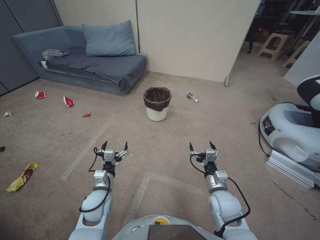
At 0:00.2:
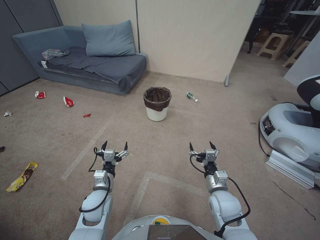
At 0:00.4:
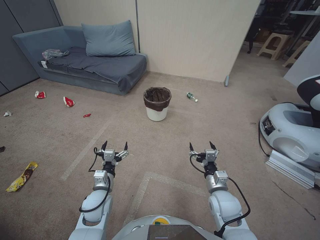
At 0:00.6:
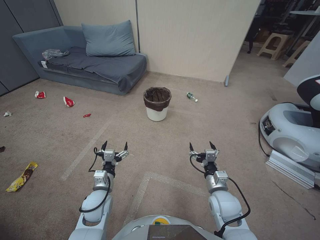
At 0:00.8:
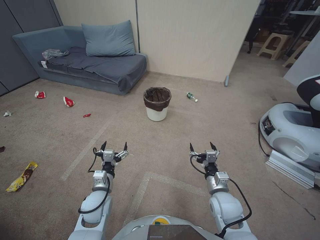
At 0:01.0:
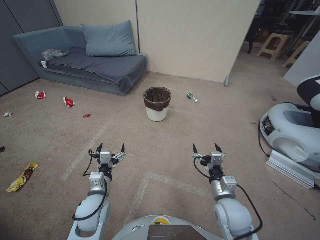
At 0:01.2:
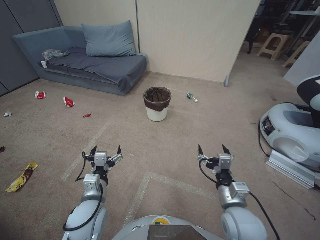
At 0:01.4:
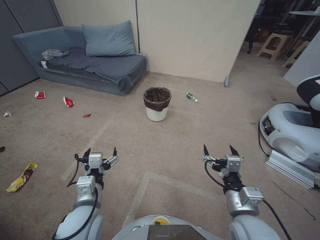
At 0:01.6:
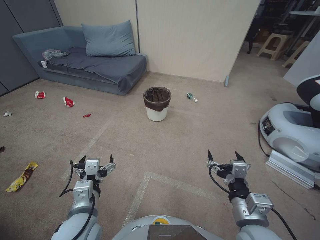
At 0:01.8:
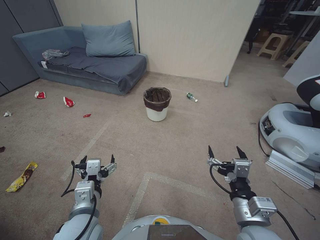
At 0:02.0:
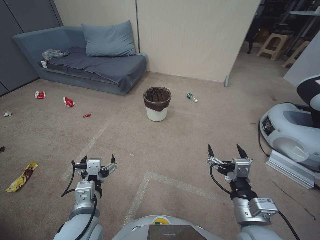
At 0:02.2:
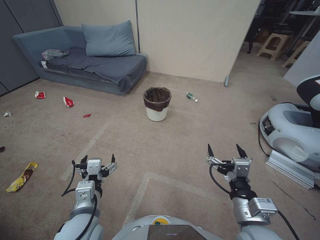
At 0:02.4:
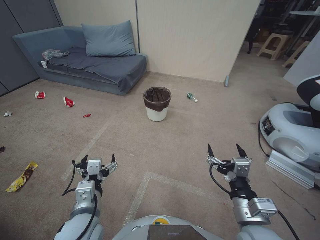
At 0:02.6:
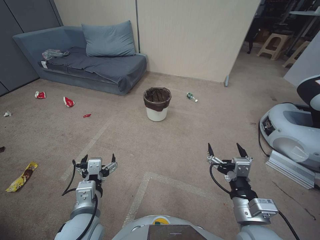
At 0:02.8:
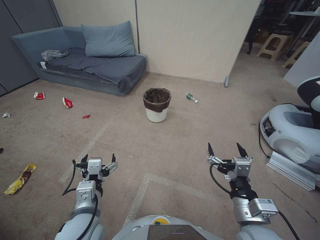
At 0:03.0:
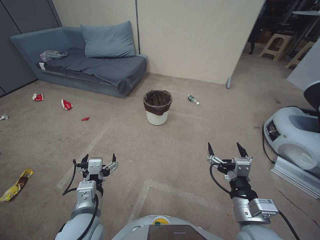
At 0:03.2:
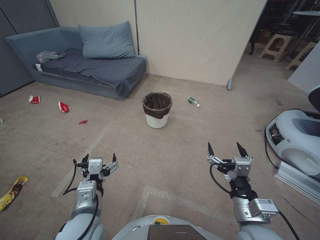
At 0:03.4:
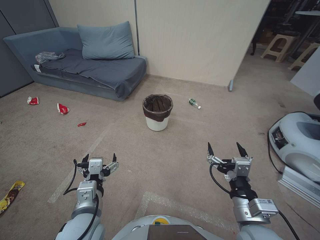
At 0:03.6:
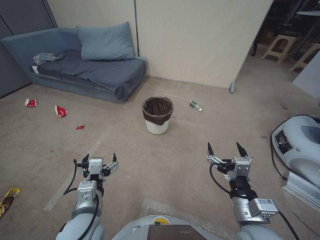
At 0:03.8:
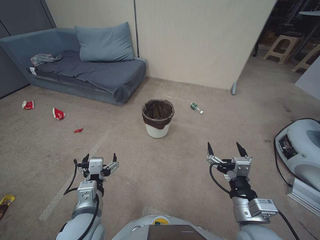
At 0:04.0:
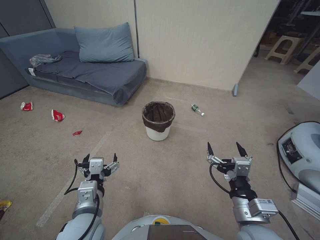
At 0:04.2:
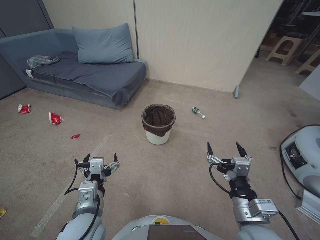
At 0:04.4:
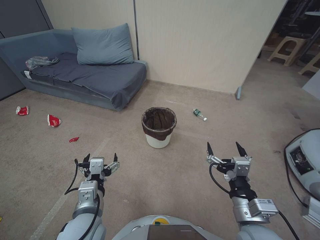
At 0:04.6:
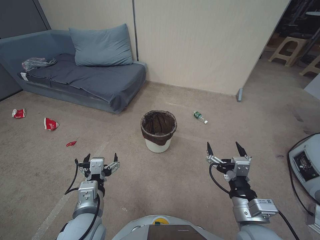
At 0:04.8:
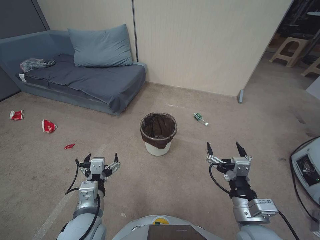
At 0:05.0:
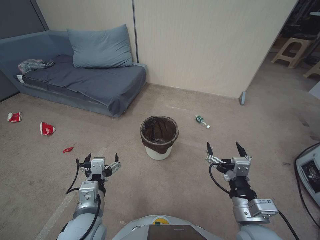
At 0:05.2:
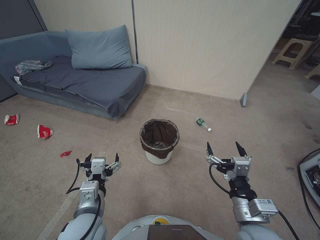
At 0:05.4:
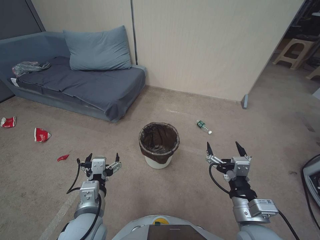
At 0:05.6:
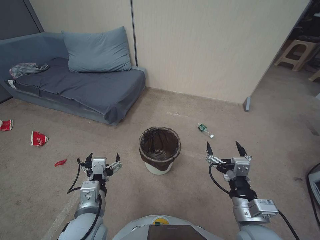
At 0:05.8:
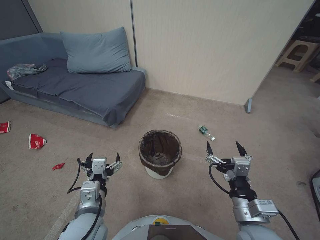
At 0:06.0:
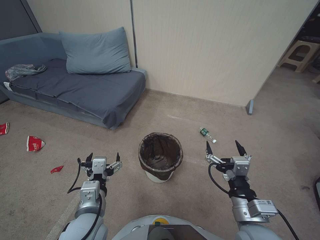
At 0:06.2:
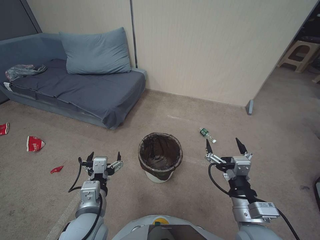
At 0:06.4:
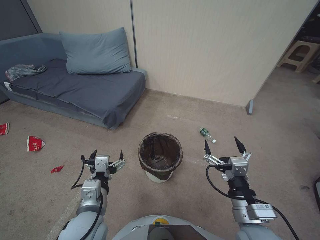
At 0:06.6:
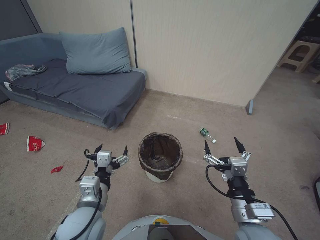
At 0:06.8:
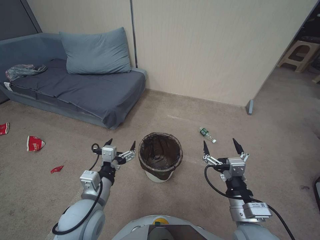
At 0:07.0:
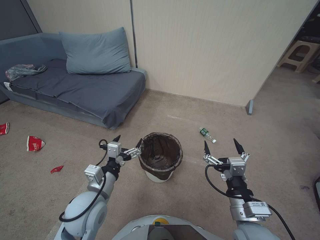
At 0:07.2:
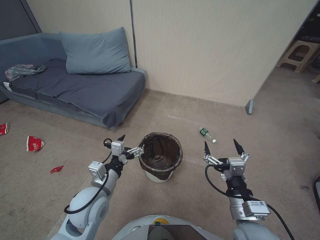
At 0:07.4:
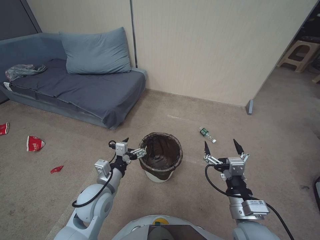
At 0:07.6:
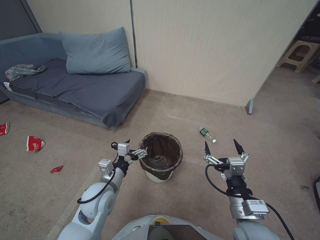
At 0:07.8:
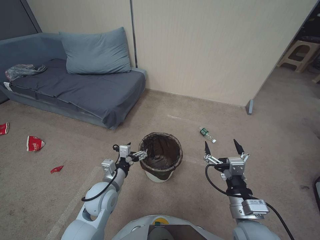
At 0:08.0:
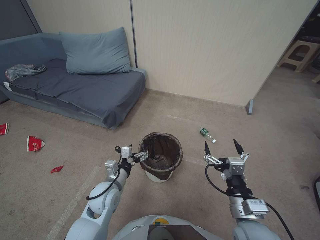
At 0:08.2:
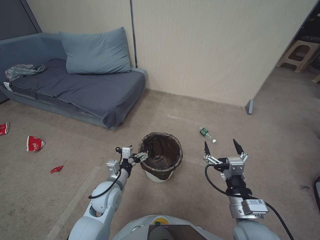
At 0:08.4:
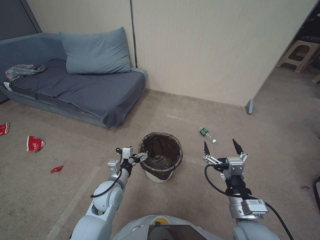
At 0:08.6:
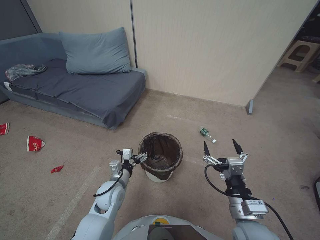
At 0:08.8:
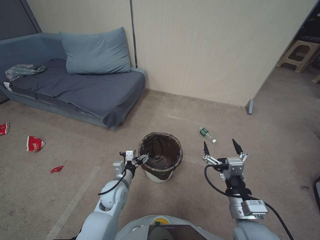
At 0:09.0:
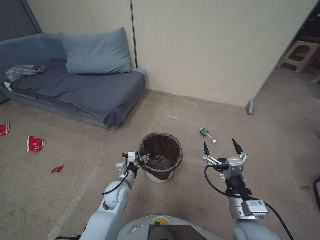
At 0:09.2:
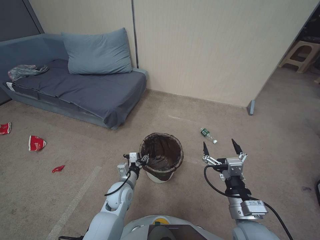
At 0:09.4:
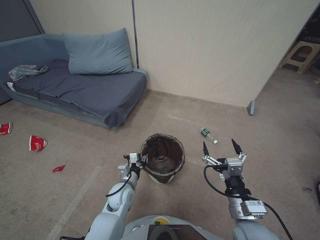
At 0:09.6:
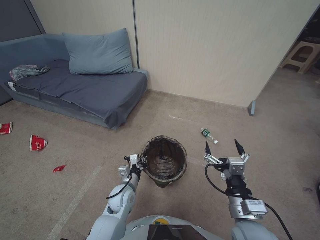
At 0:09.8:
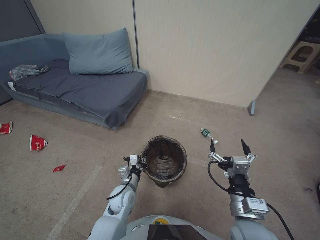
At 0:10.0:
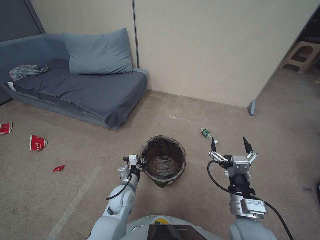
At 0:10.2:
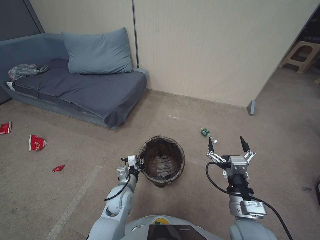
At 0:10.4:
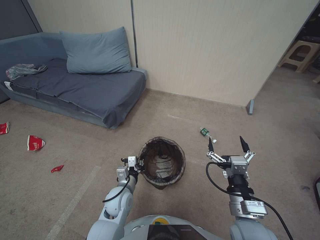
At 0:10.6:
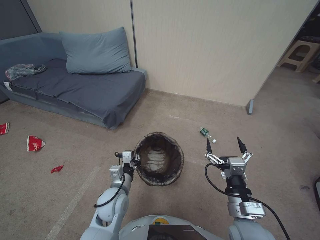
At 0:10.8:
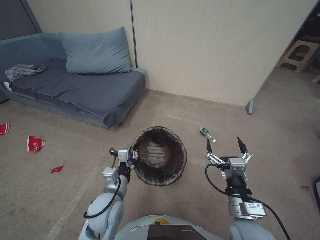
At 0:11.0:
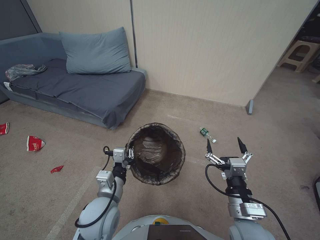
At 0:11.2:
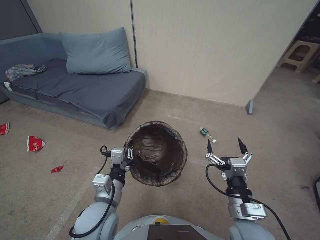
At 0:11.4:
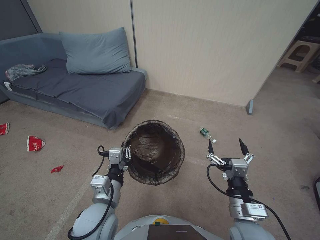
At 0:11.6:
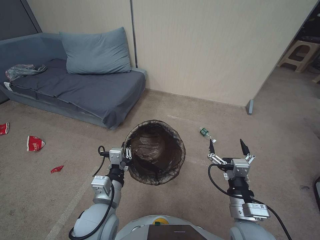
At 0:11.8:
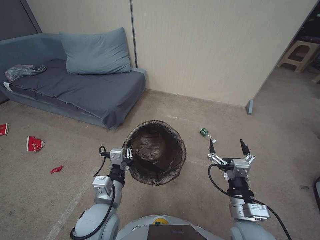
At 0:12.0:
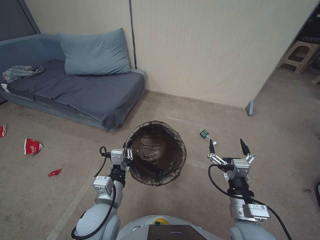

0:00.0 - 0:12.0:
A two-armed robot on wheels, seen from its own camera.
Task of the whole recording: Pick up the trash bin, then pick up the garbage from the floor and place it into the trash bin.
0:01.6 - 0:03.0: The grippers stay close to where they were, moving slightly.
0:06.0 - 0:07.6: The left gripper moves forward, approximately 10 cm.
0:07.6 - 0:09.0: The left gripper travels downward by some 10 cm.
0:09.0 - 0:10.4: The left gripper closes.
0:10.4 - 0:12.0: The left gripper goes approximately 15 cm upward and backward.

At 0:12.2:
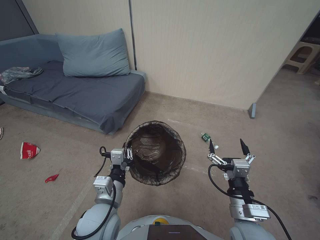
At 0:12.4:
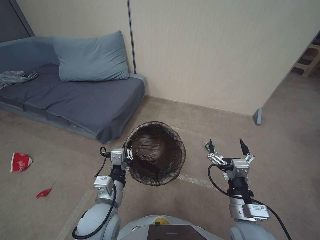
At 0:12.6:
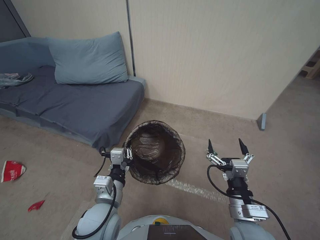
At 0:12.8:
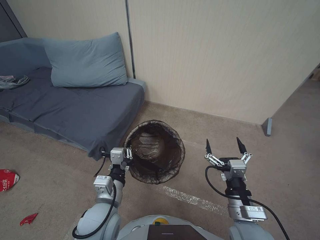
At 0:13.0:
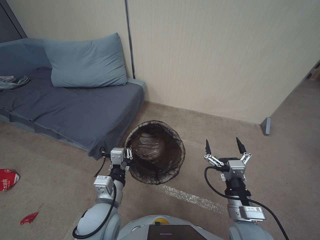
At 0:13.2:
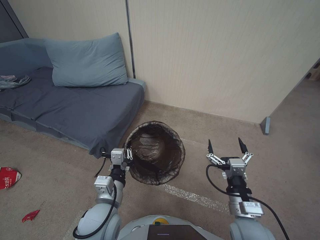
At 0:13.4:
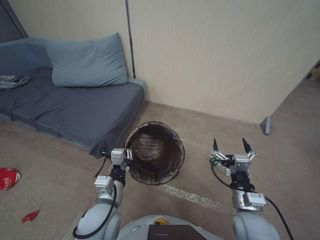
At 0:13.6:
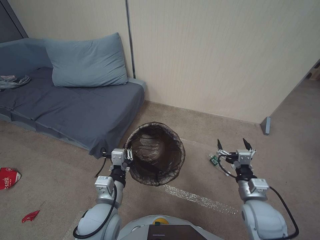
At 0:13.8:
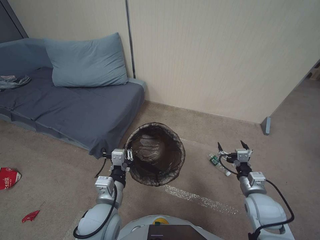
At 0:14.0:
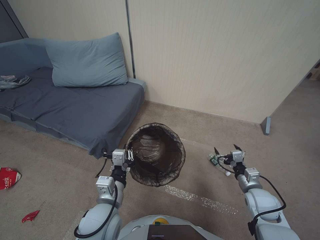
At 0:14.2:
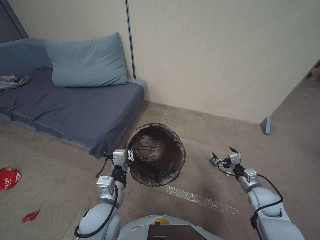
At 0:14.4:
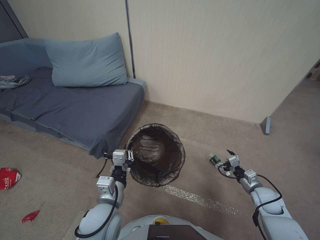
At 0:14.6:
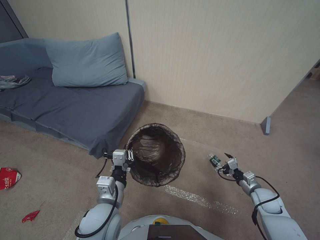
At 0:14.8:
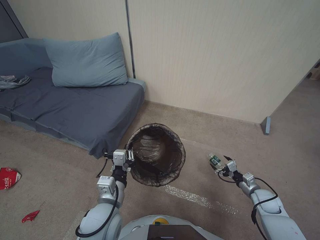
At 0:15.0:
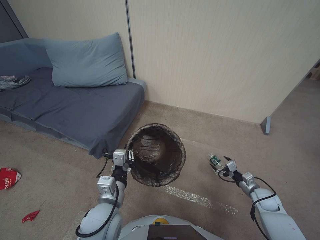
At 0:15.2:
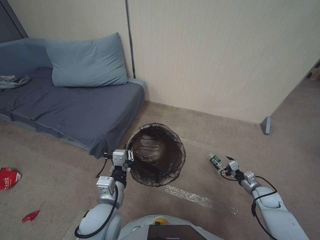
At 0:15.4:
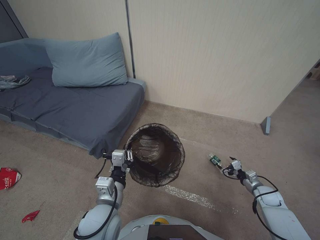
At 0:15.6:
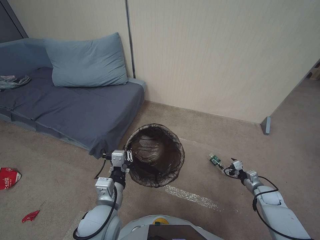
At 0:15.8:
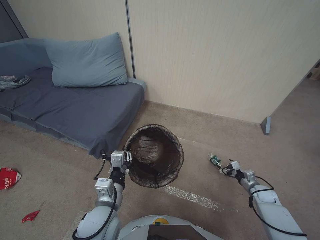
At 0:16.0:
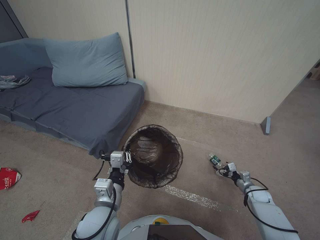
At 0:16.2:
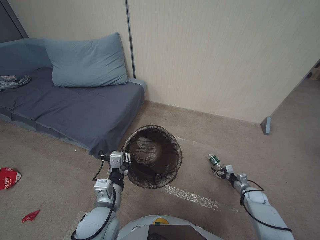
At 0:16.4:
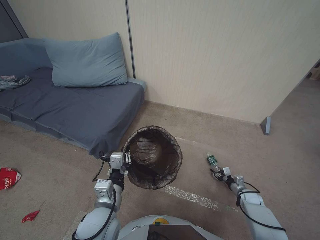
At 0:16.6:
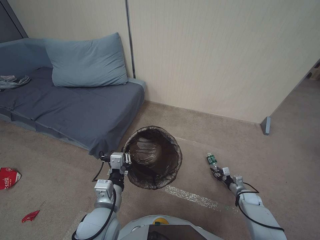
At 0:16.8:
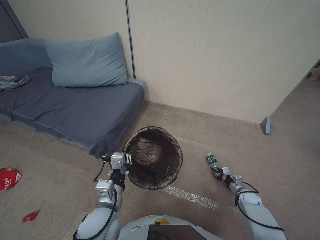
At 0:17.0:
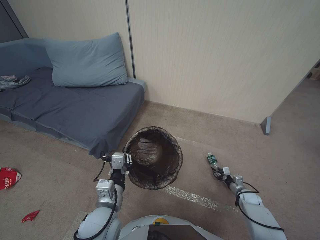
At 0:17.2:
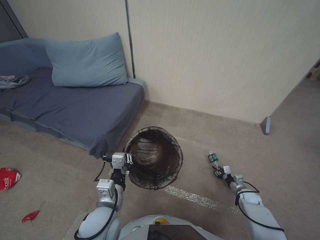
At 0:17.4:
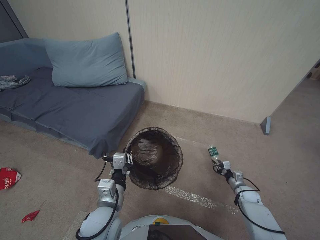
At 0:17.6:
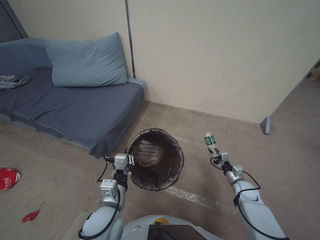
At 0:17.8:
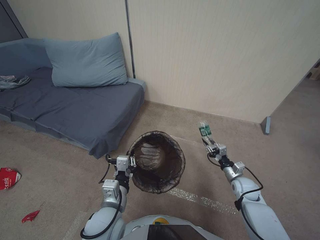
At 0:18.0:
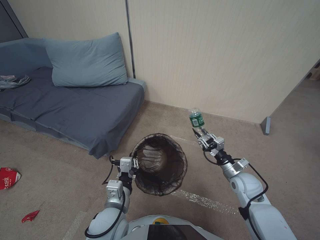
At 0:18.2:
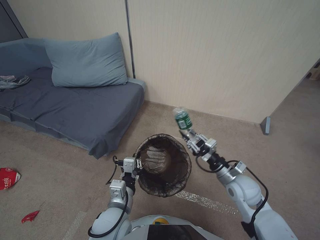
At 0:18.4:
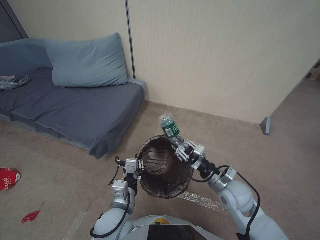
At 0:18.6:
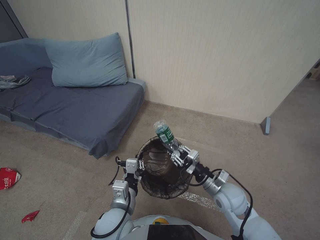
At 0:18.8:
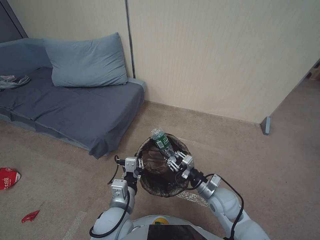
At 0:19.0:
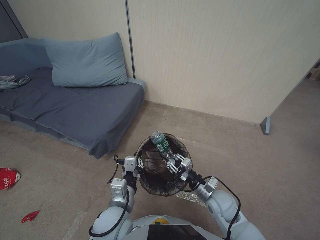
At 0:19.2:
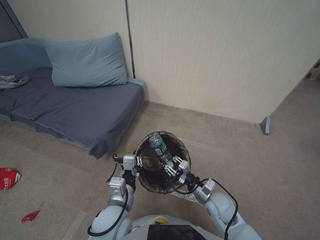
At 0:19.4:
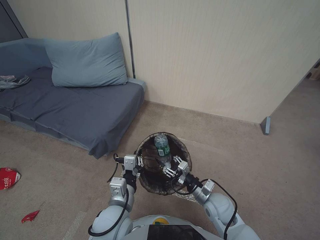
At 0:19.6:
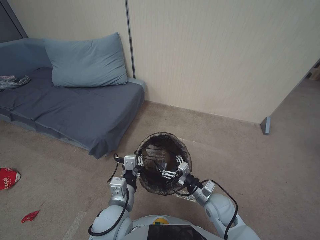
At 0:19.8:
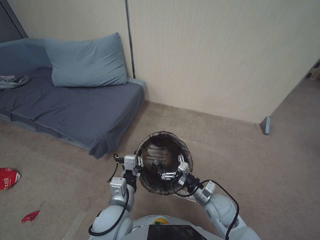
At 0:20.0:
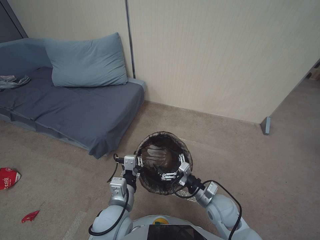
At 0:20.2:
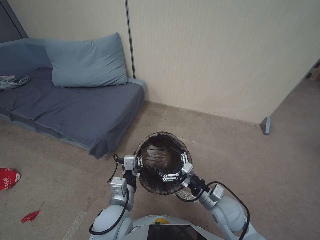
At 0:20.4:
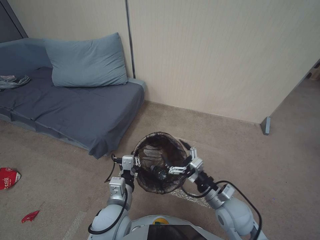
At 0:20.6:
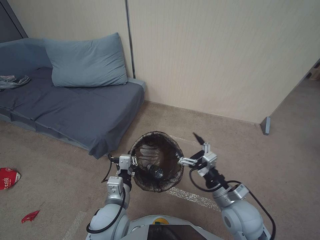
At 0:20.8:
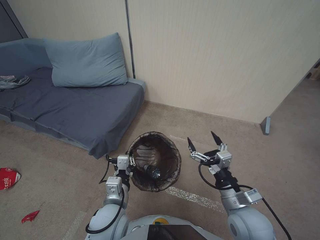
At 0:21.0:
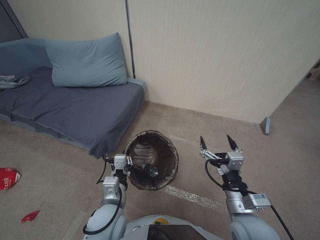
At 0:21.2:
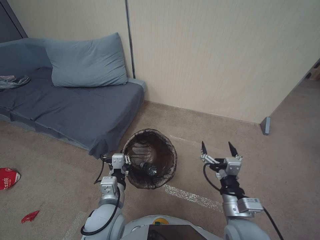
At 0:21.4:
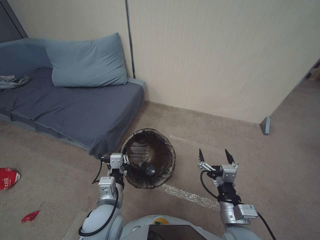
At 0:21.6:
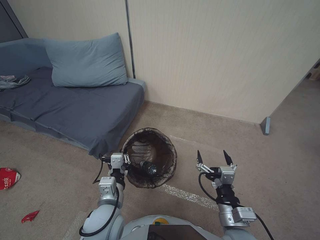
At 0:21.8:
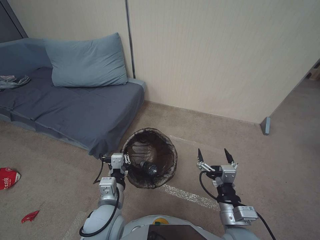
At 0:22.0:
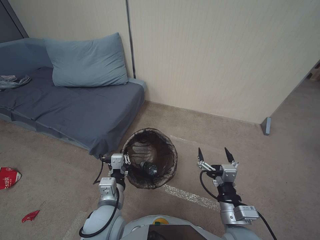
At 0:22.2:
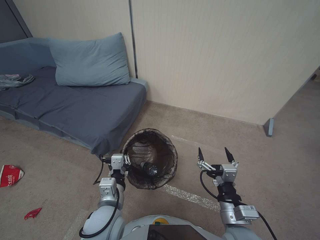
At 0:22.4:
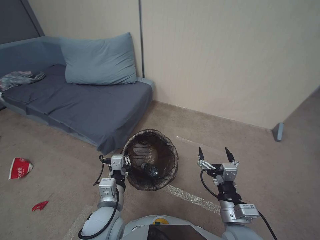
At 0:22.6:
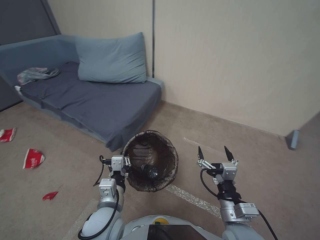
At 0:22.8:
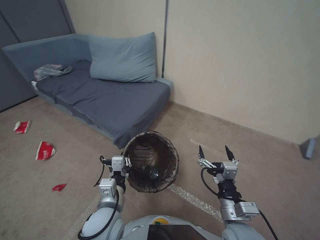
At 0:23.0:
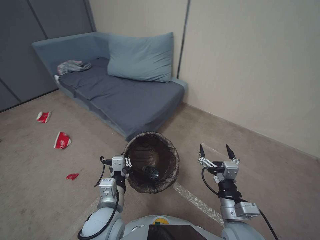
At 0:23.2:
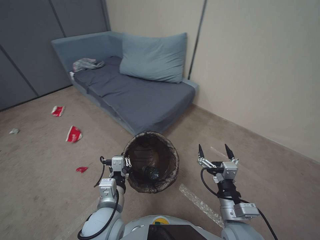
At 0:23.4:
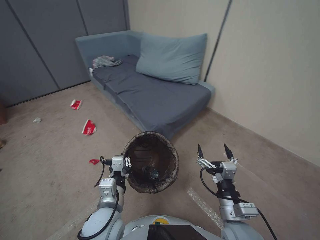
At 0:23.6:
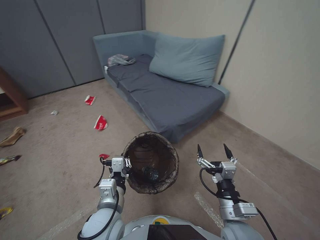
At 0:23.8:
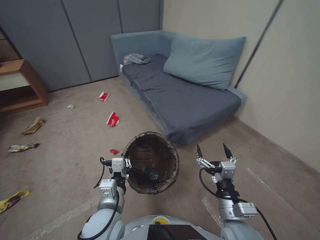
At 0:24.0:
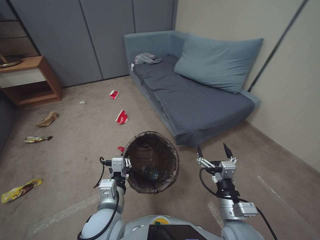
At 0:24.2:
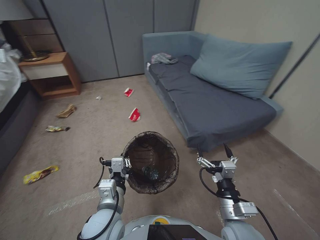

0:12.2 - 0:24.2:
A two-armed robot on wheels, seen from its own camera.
Task of the whole recording: Pick up the trash bin, then pick up the garbage from the floor and place it into the trash bin.
0:12.2 - 0:13.8: The right gripper goes about 10 cm to the right and forward.
0:13.8 - 0:15.2: The right gripper heads to the right, downward and forward, covering roughly 25 cm.
0:15.2 - 0:16.6: The right gripper moves downward, approximately 10 cm, and closes up.
0:16.6 - 0:18.2: The right gripper moves upward and to the left, about 30 cm.
0:18.2 - 0:19.8: The right gripper travels to the left, downward and backward by some 15 cm, and opens up.
0:19.8 - 0:21.2: The right gripper shifts some 15 cm upward and backward.
